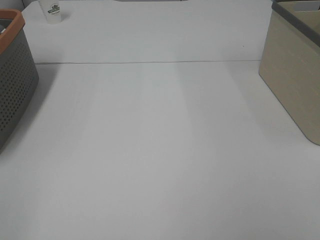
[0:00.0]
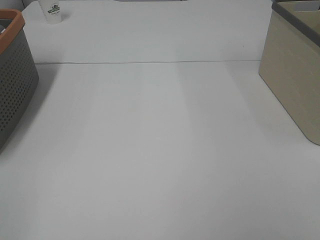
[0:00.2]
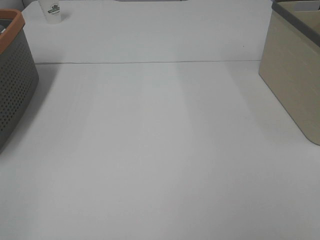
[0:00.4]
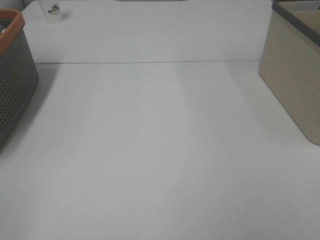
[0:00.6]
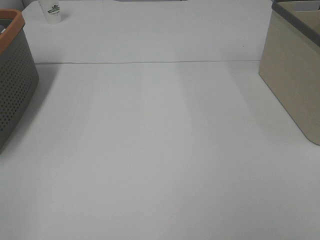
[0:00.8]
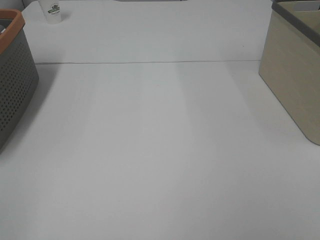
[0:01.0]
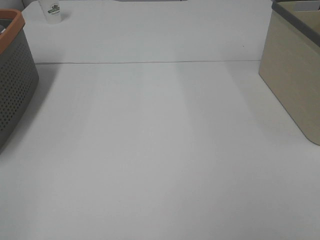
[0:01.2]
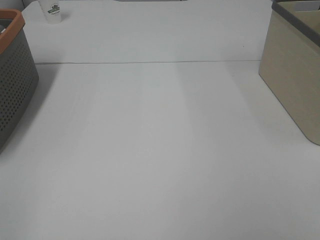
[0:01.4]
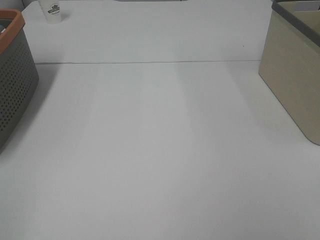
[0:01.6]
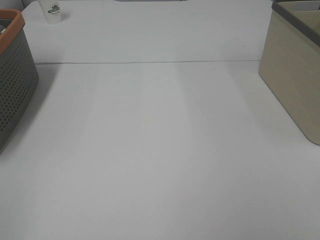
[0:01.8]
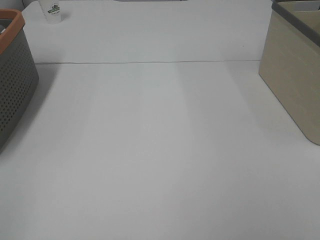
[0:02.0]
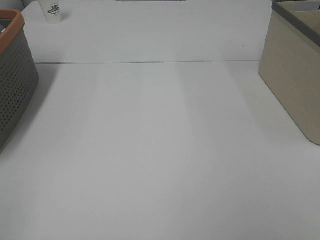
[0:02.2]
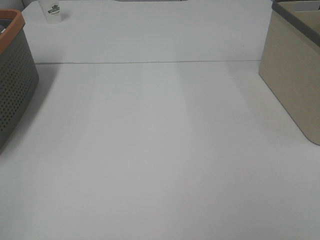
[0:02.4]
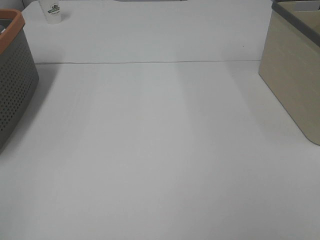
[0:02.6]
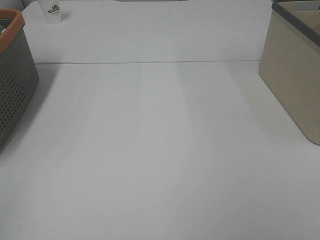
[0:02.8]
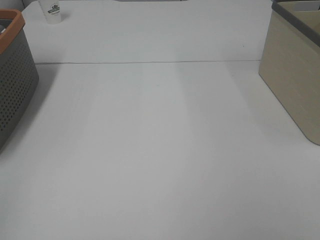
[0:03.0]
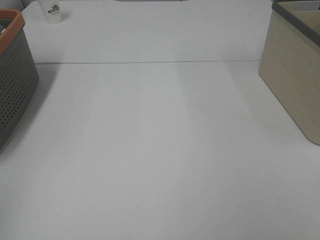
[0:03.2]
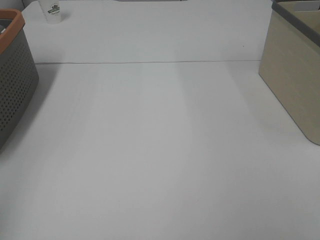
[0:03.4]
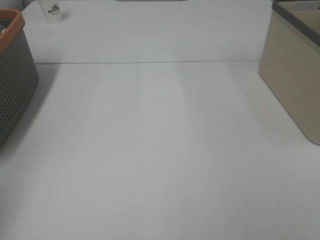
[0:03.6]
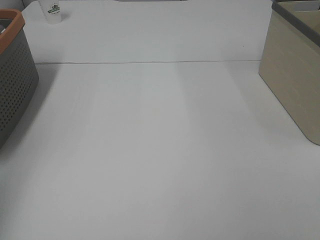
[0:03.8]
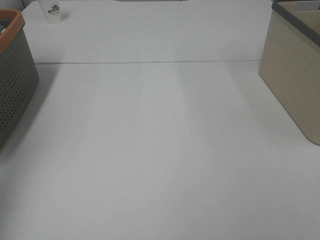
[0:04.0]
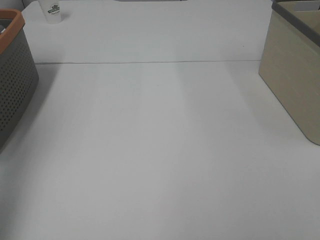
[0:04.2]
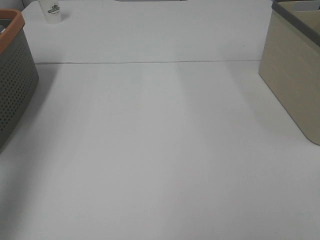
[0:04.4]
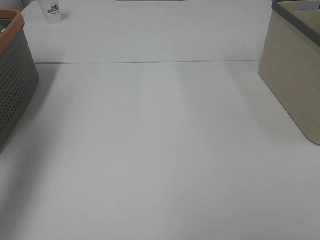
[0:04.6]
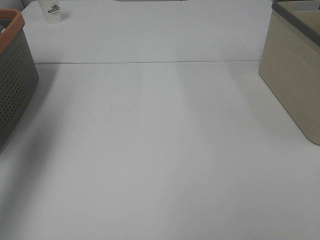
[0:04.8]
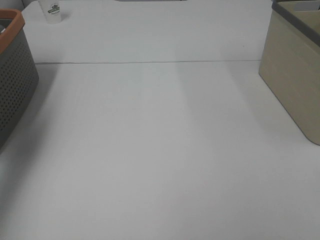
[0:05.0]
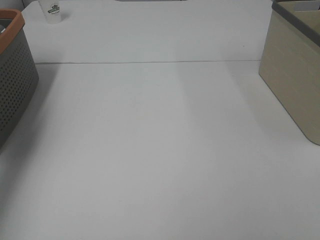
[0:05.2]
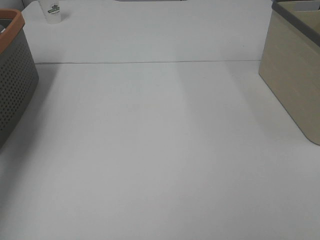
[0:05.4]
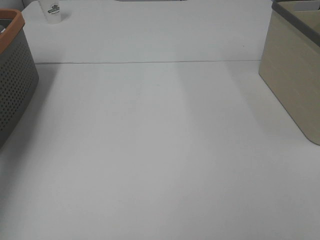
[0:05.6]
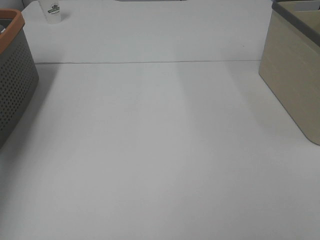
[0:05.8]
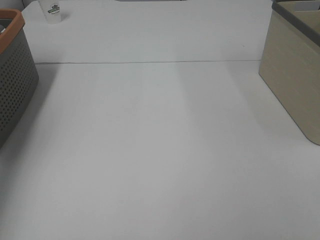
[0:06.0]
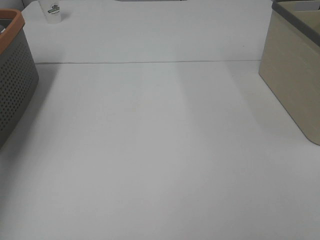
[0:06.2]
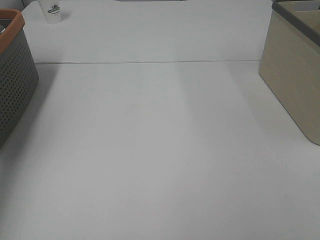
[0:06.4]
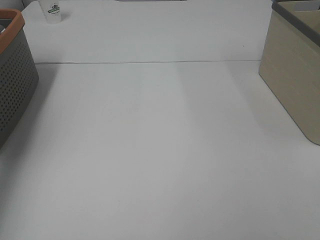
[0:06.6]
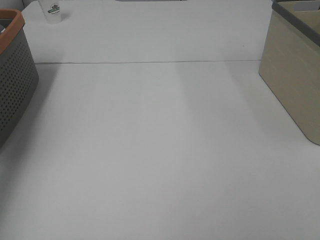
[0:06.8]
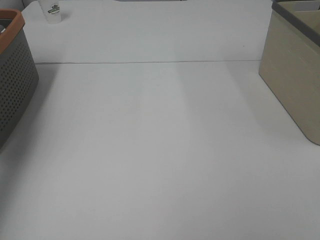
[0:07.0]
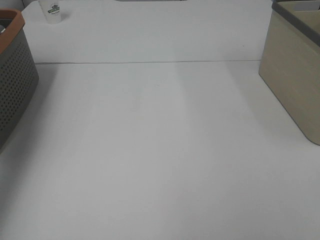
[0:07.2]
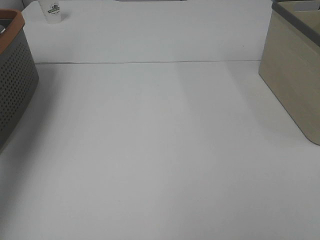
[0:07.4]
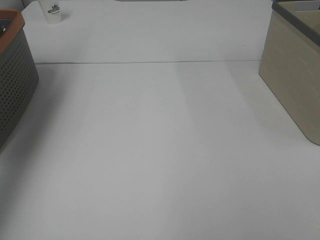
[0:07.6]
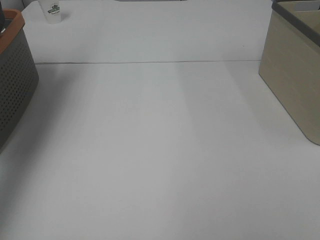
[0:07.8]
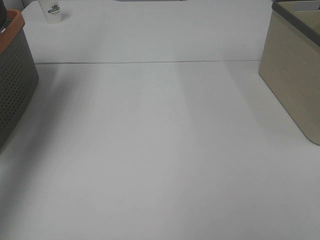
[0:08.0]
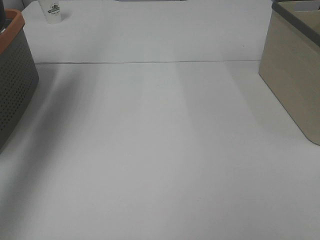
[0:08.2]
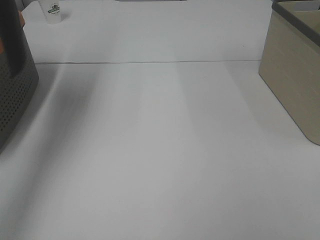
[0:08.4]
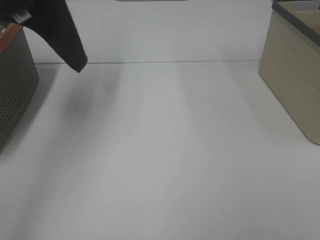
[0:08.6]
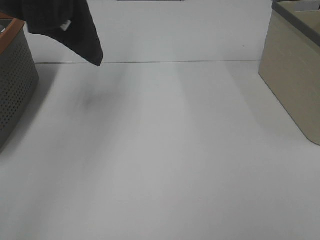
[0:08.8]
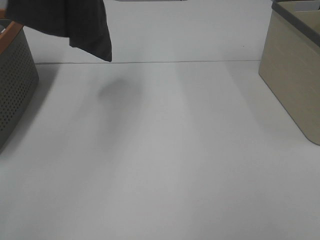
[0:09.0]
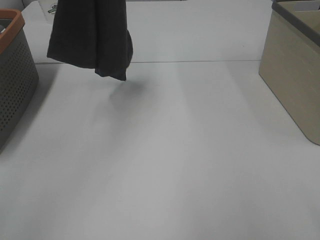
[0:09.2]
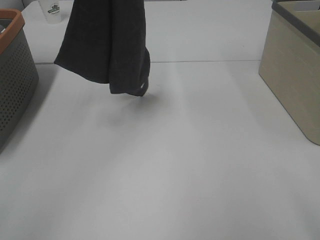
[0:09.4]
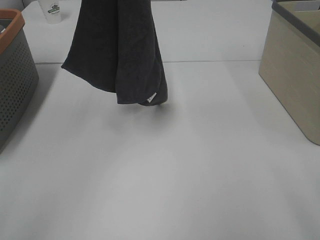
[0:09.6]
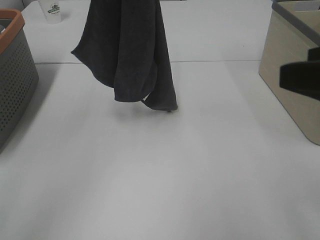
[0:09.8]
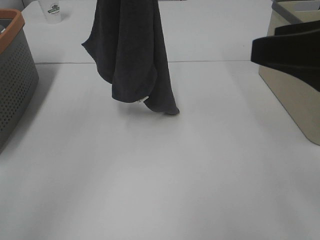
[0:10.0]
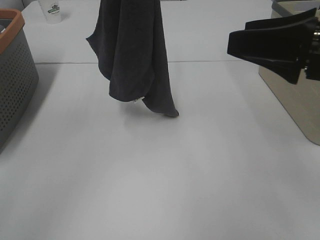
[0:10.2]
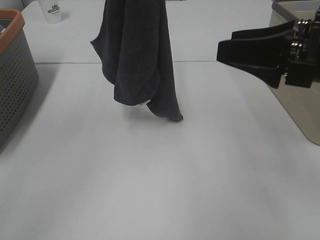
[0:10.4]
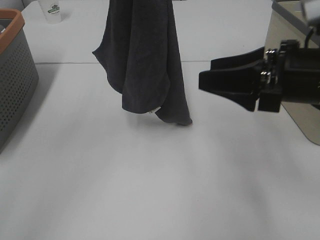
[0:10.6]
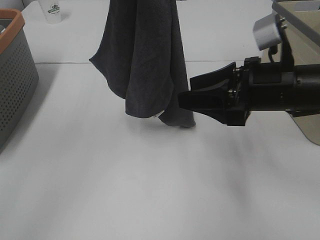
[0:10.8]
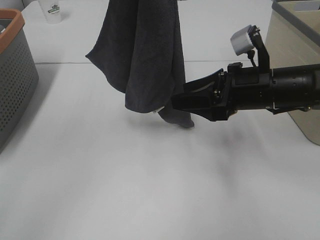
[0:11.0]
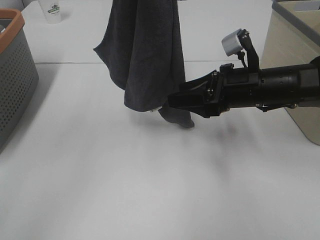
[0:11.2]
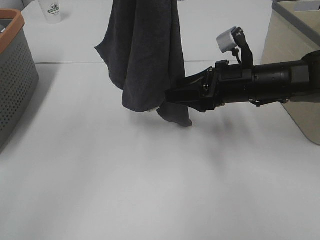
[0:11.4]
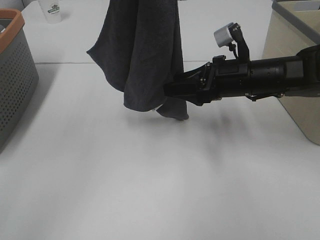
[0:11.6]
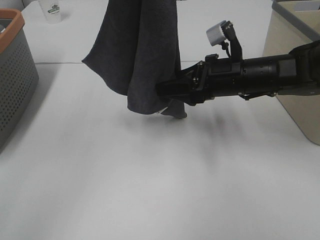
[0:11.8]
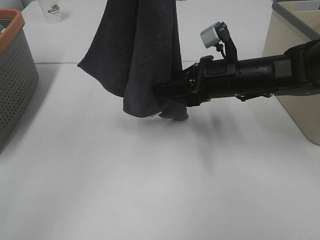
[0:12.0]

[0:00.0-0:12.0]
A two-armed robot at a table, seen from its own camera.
Task of the whole recording: Remove the towel and place it.
Step, 0:08.6 to 0:11.2: Right hand: grab a corner of the grey towel and straighten it.
0:00.0 to 0:01.6: The two grippers keep their place.
0:03.0 to 0:04.4: The left gripper goes some 25 cm forward.
0:04.4 to 0:06.0: The left gripper shifts approximately 20 cm forward and downward, and closes up.
0:06.0 to 0:07.6: The left gripper heads upward, covering some 25 cm, and closes.
0:07.6 to 0:09.0: The left gripper moves to the right, some 15 cm.
0:09.0 to 0:10.4: The right gripper heads forward, covering some 20 cm. The left gripper goes approximately 10 cm downward.
0:10.4 to 0:12.0: The right gripper moves forward, downward and to the left, some 15 cm.

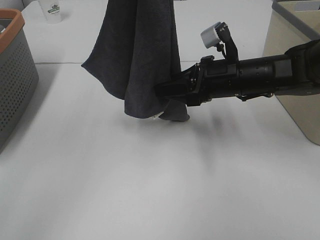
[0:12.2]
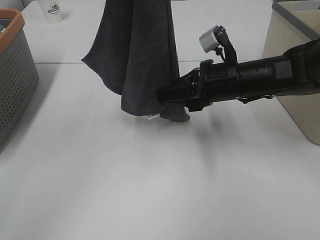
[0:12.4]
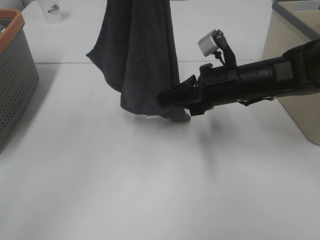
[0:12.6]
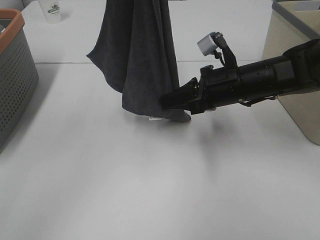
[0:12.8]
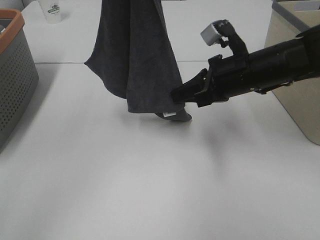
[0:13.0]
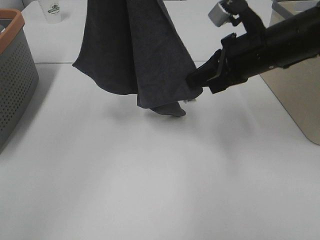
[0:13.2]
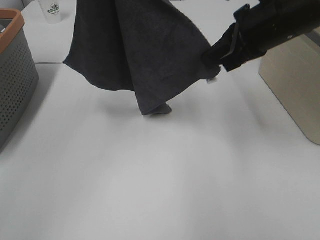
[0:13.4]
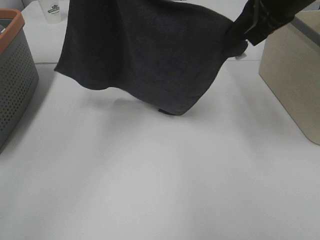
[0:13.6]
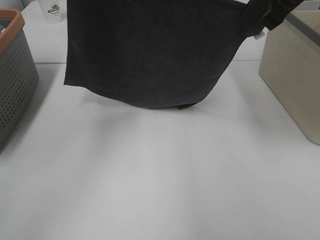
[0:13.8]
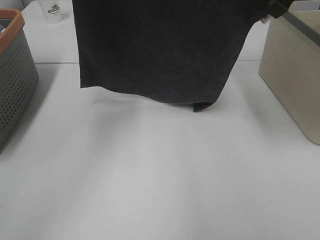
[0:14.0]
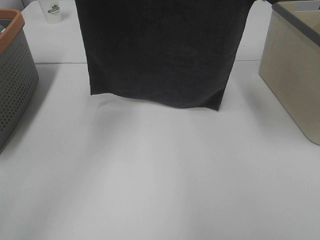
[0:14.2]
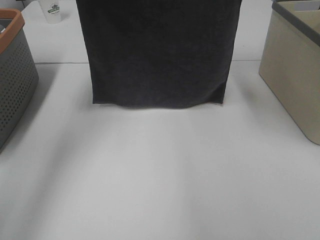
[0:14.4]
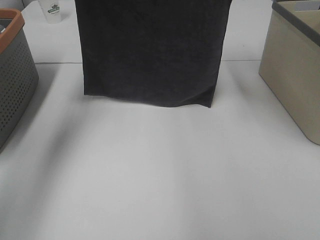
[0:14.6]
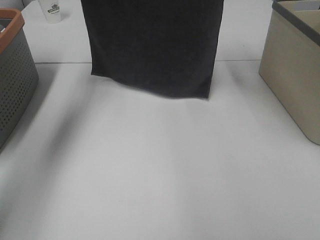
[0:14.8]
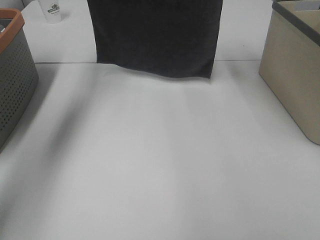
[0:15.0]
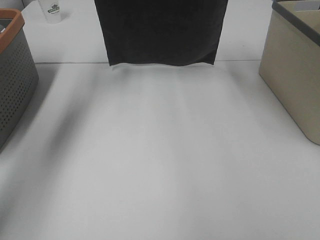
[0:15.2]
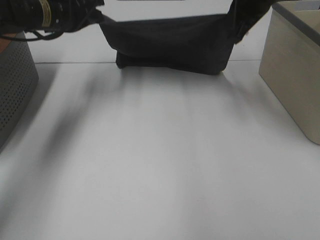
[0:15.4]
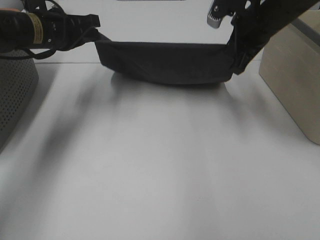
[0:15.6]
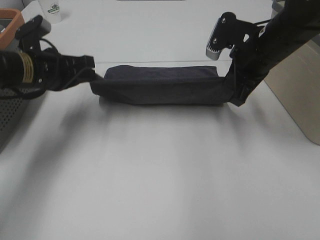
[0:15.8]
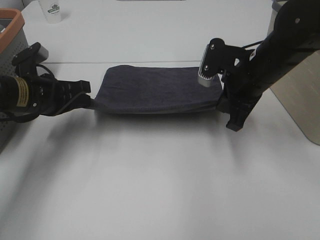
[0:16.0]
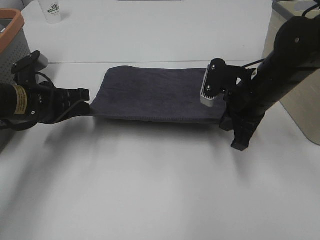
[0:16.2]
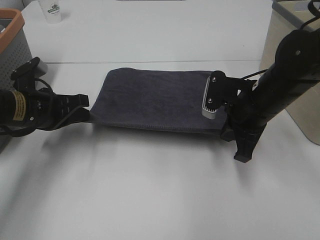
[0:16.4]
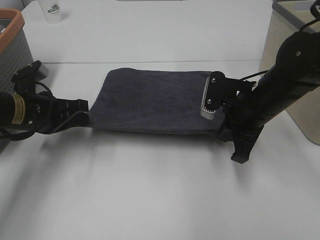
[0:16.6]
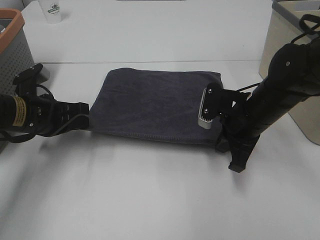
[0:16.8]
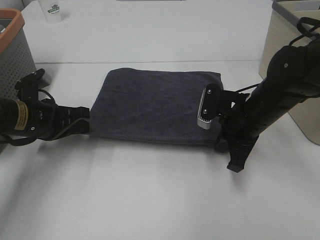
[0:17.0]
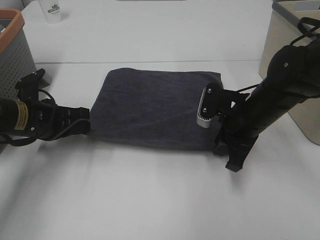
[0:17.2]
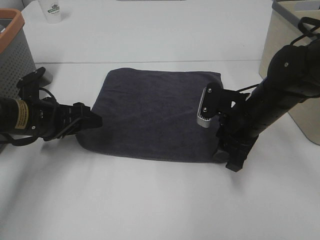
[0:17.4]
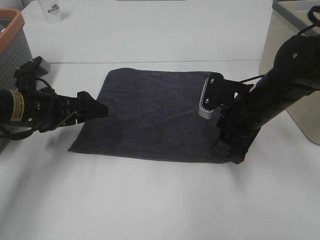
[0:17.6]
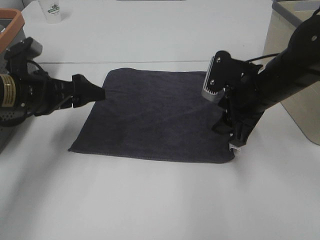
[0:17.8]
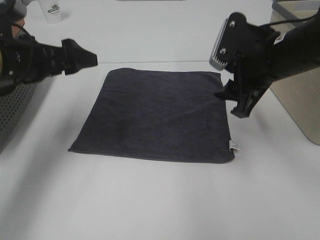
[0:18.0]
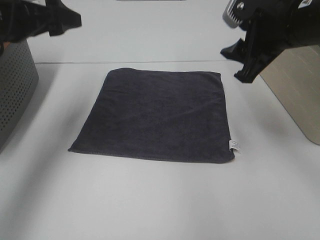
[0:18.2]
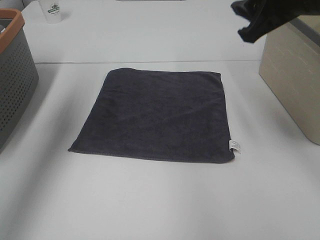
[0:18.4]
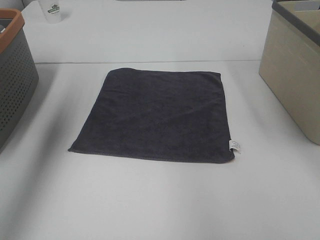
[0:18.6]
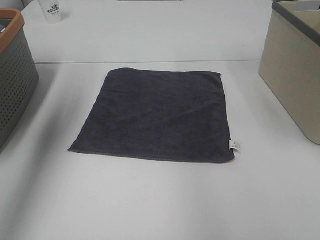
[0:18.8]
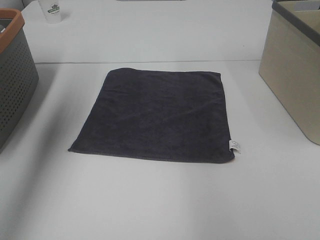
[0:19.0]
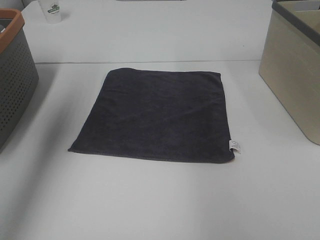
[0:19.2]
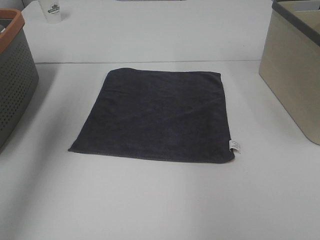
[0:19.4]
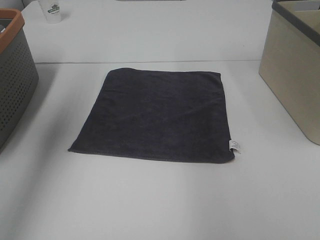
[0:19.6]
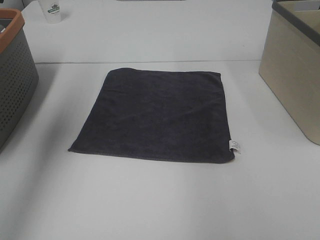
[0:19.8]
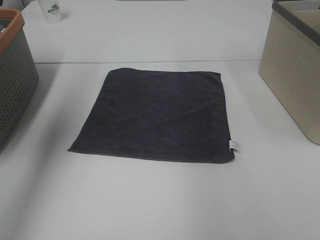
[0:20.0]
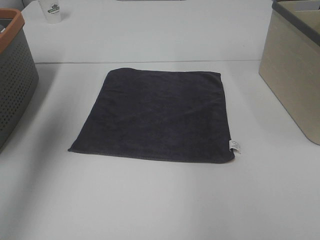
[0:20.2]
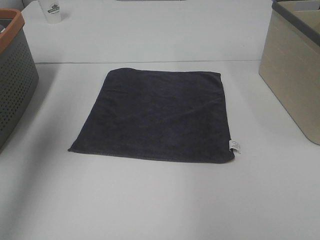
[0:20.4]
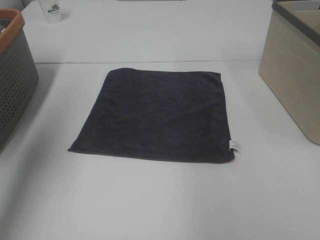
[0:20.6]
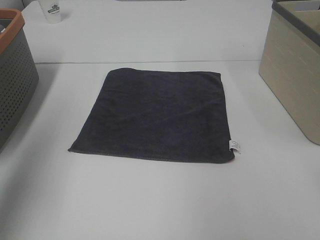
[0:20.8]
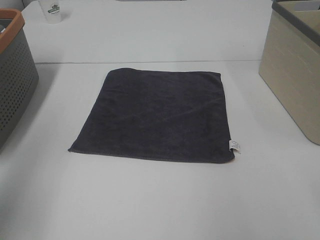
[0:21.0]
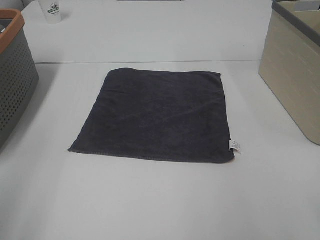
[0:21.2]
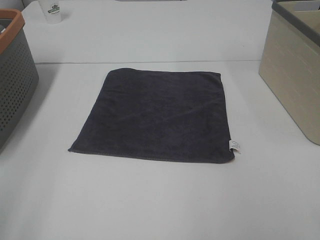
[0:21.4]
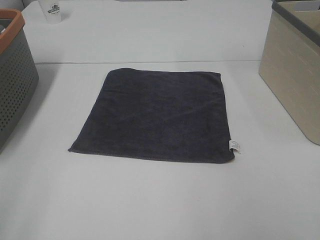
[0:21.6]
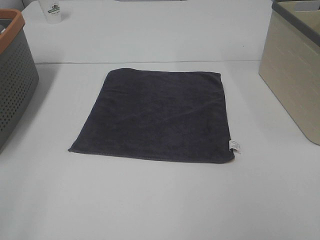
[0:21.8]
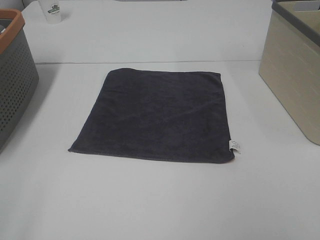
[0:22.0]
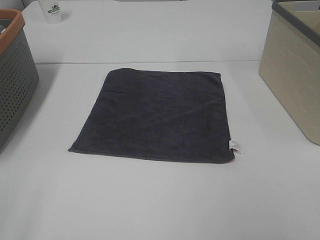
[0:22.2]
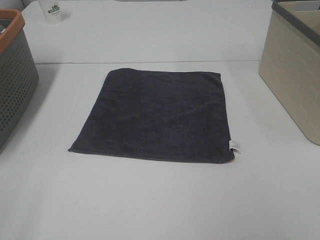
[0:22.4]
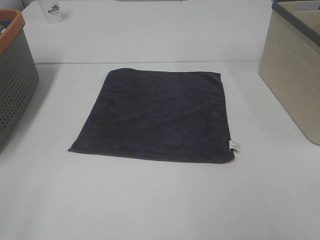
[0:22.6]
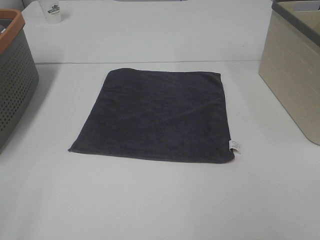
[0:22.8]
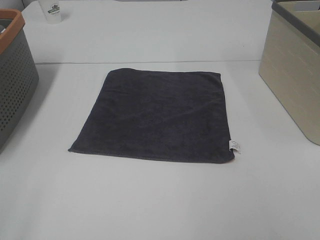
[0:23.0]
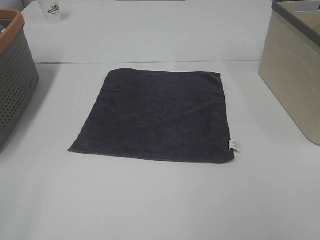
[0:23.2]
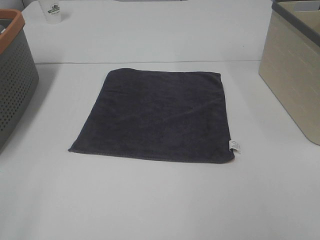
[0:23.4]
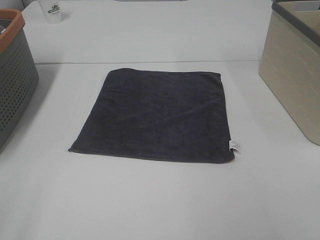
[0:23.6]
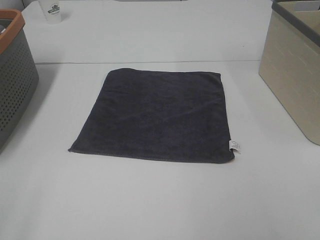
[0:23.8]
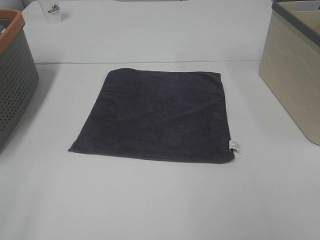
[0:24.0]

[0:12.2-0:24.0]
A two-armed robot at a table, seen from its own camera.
Task of the whole recording: Remove the towel and place it.
Step, 0:12.2 to 0:14.0: Left hand: spread the grey towel flat on the table.
Step, 0:12.2 to 0:14.0: Right hand: spread the grey towel flat on the table.
0:12.2 to 0:13.6: The right gripper goes roughly 15 cm upward, and closes, while the left gripper moves roughly 5 cm.
0:13.6 to 0:15.2: The left gripper is displaced forward and downward by approximately 15 cm. The right gripper is displaced forward by about 10 cm.
0:15.2 to 0:16.6: The right gripper moves downward and backward, about 25 cm. The left gripper heads backward and downward, covering some 25 cm.
0:16.6 to 0:18.2: The grippers both shift upward by roughly 15 cm. The left gripper opens up. The right gripper opens its fingers.
0:18.2 to 0:19.6: The left gripper heads upward, covering roughly 10 cm. The right gripper moves upward and to the right, roughly 15 cm.
0:19.6 to 0:21.0: The left gripper moves backward and downward, about 20 cm.
0:21.0 to 0:22.6: The left gripper heads backward, covering some 15 cm.
0:22.6 to 0:24.0: Both grippers stay about where they are.
